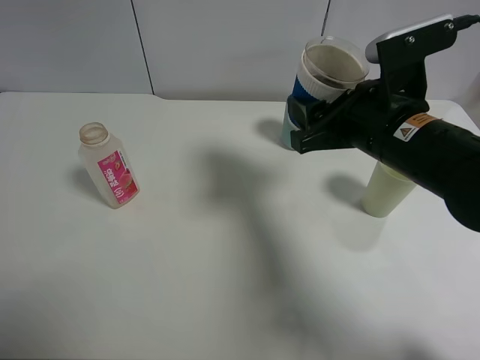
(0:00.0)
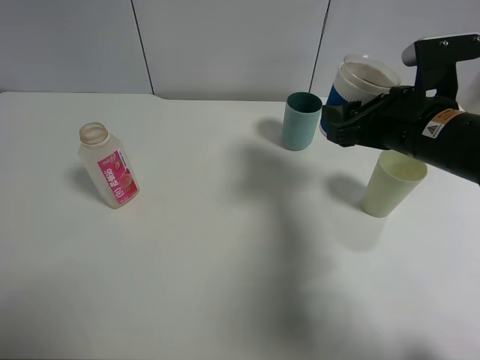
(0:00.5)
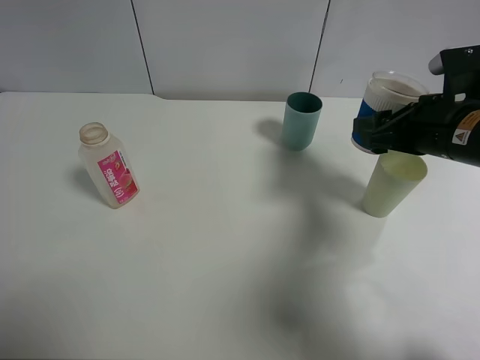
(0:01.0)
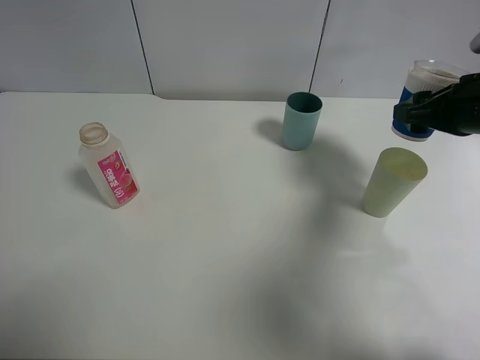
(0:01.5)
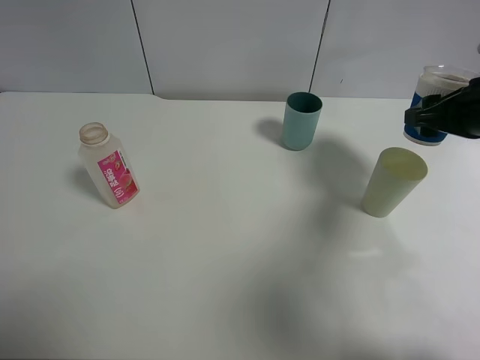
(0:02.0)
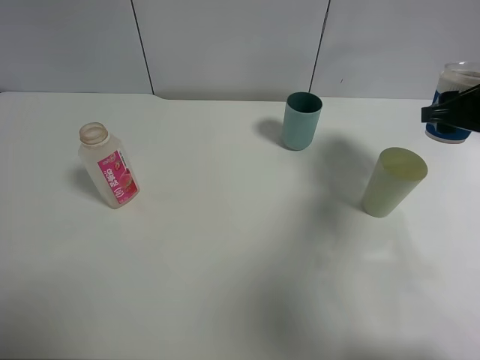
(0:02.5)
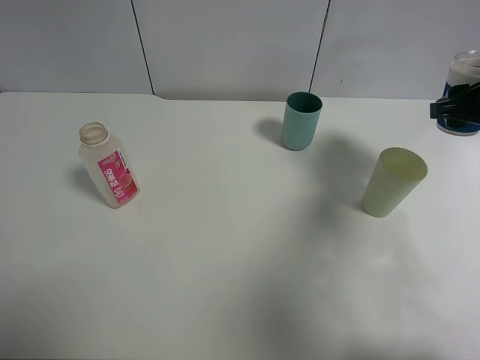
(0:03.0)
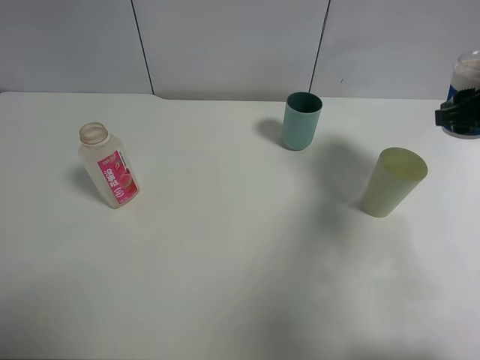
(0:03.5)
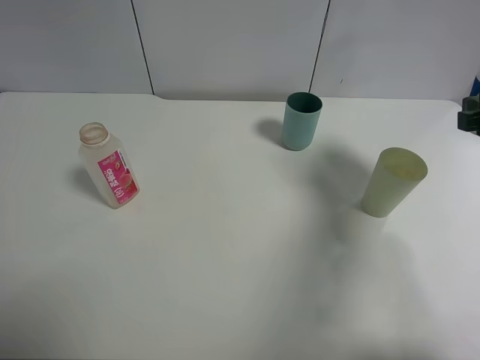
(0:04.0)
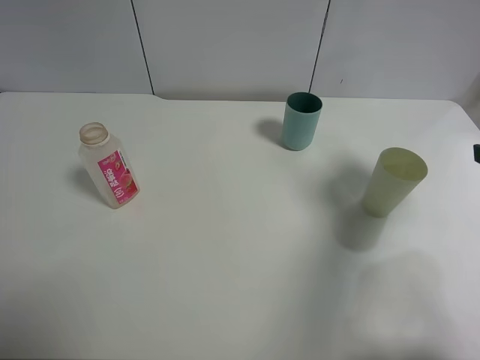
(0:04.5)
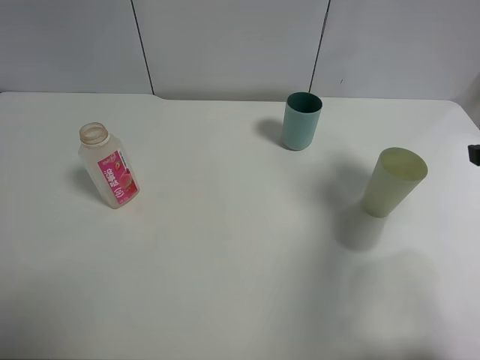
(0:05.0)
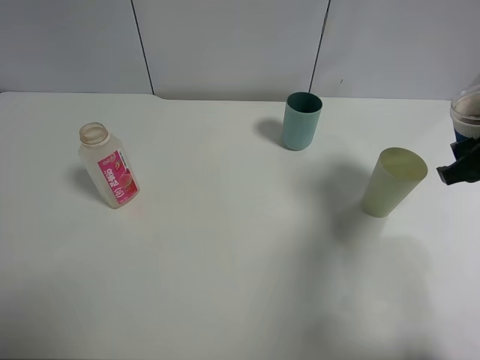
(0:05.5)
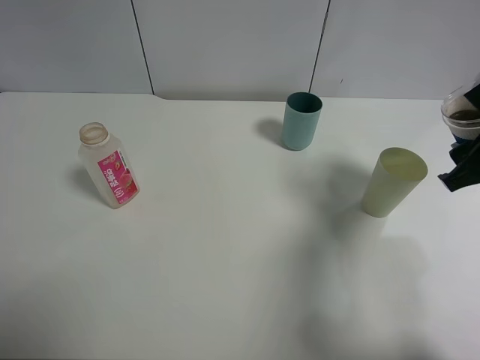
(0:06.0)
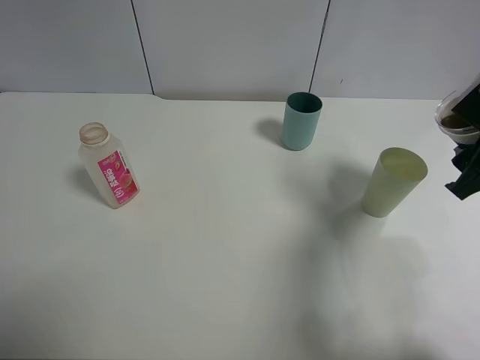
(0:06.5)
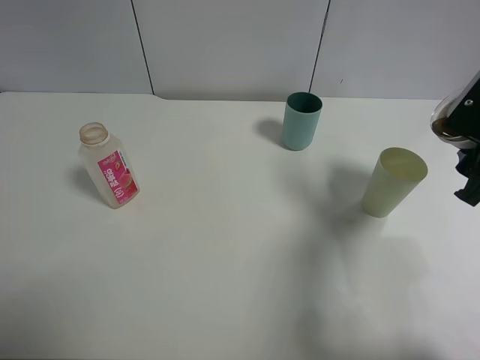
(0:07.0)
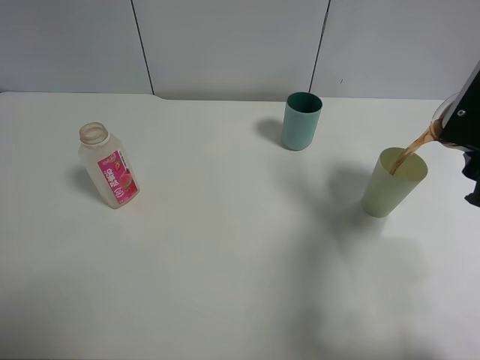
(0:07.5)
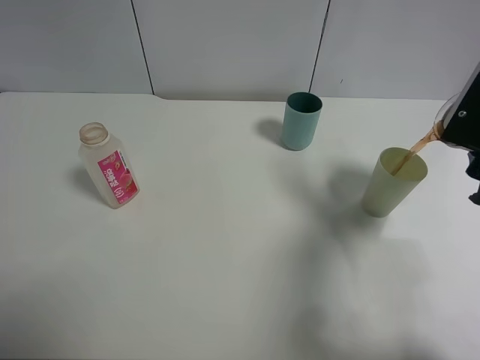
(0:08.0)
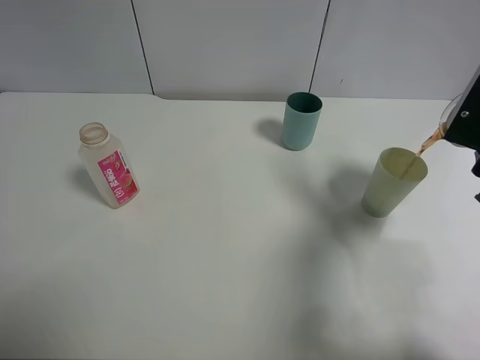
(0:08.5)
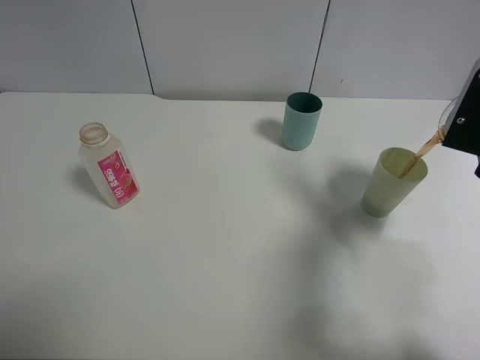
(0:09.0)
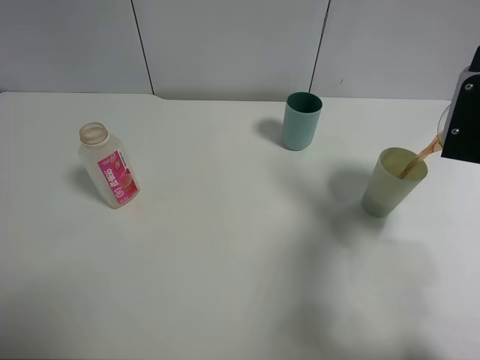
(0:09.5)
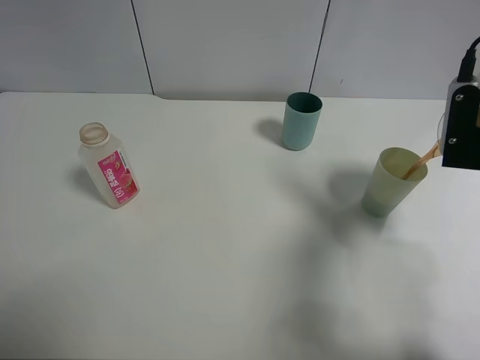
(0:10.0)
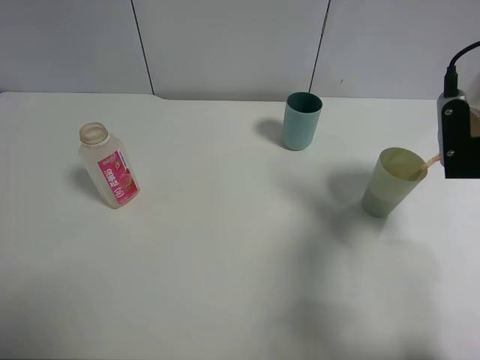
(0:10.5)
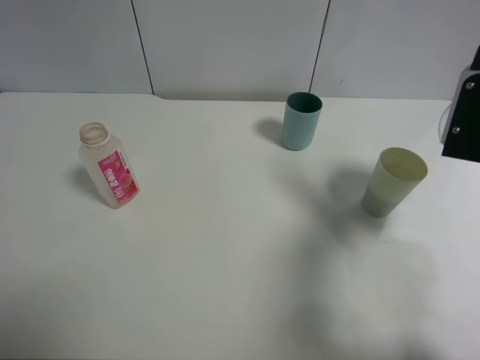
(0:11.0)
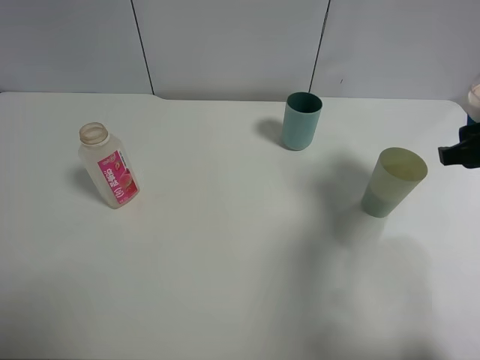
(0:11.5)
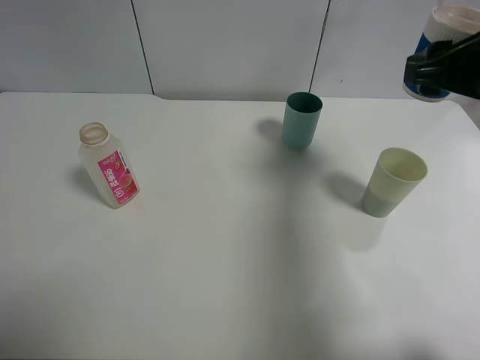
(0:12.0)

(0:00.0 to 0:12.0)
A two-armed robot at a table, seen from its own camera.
Task of the whole recording: use a clamp to hold the bottle of the drink, pour the beverage into a random cup, then clamp the cup containing the drink and pour the drink into another random cup.
Step, 0:00.0 - 0:11.0: Pour the drink into the green plastic cup with right gripper.
0:00.0 - 0:02.0: The right gripper goes about 15 cm to the right.
0:02.0 - 0:04.0: The right gripper heads backward, covering about 5 cm.
0:10.0 - 0:12.0: The right gripper is displaced upward by some 5 cm.

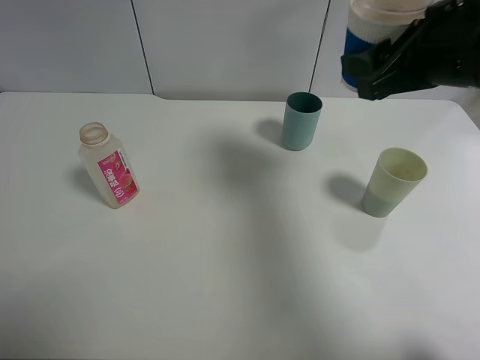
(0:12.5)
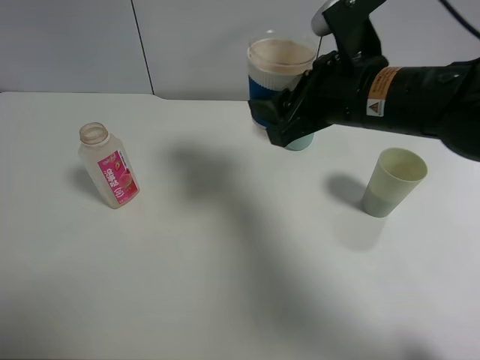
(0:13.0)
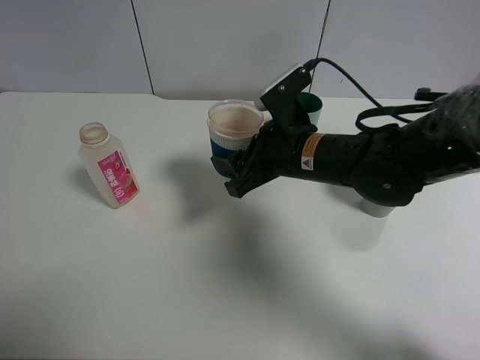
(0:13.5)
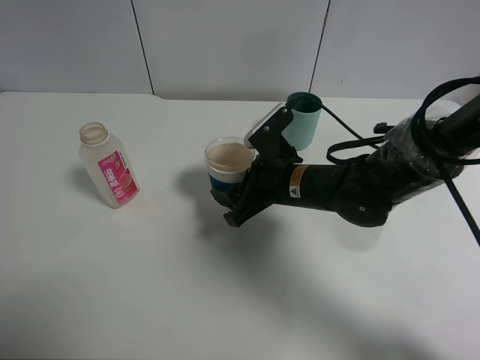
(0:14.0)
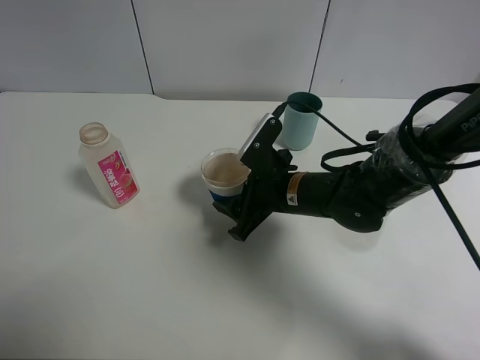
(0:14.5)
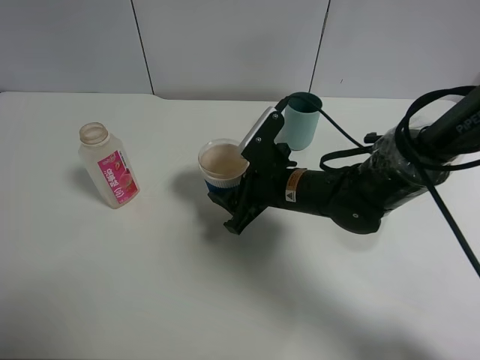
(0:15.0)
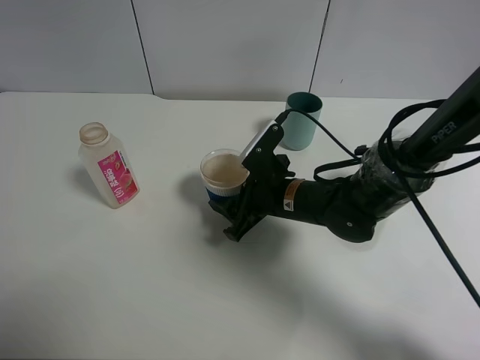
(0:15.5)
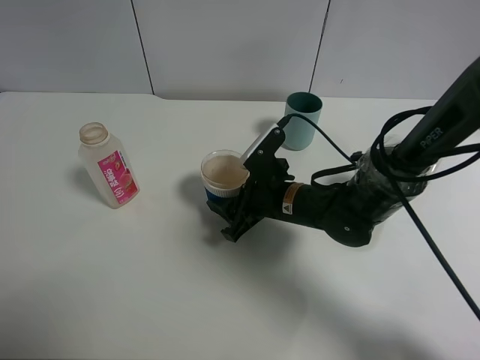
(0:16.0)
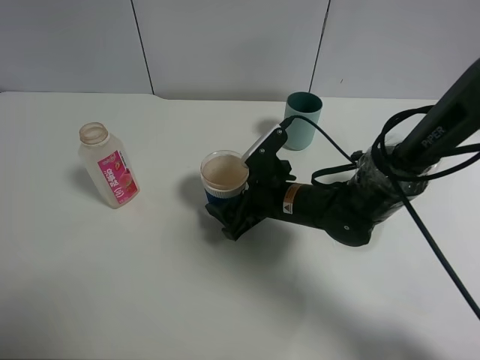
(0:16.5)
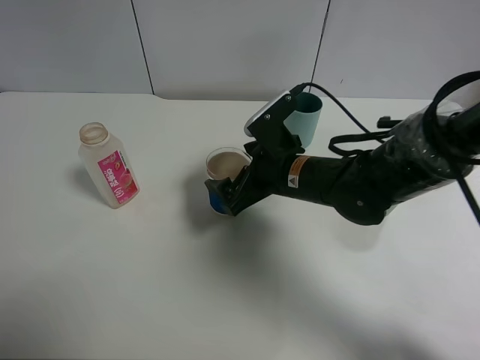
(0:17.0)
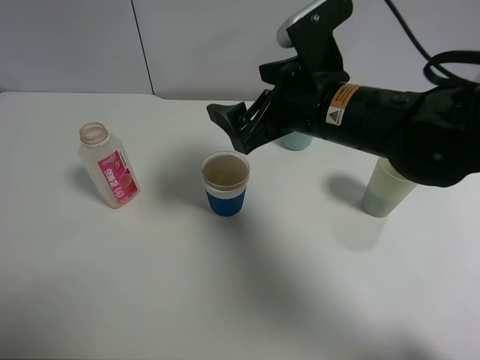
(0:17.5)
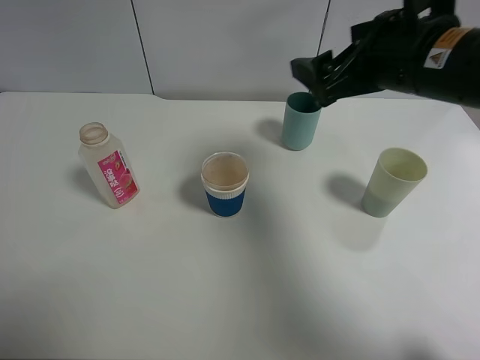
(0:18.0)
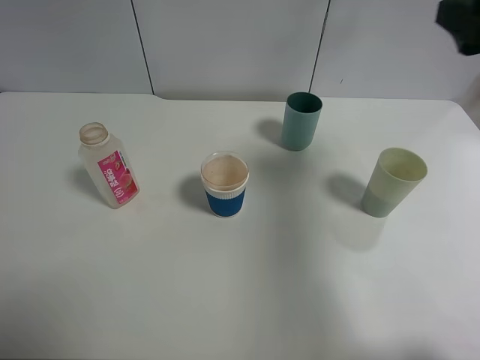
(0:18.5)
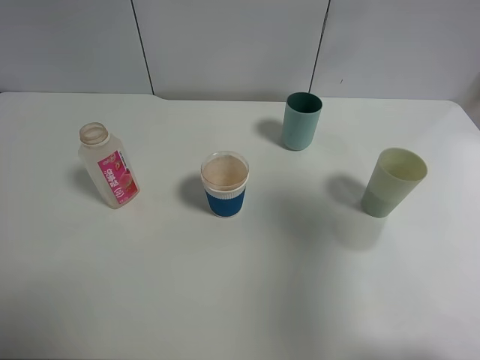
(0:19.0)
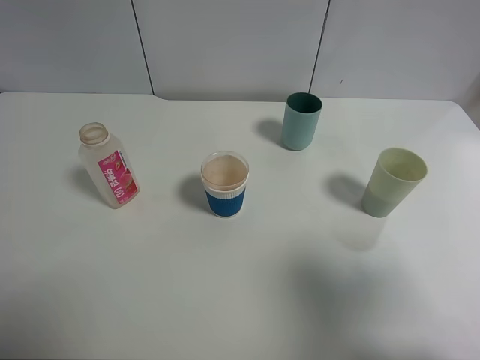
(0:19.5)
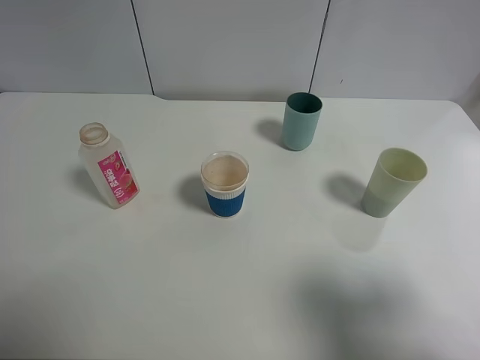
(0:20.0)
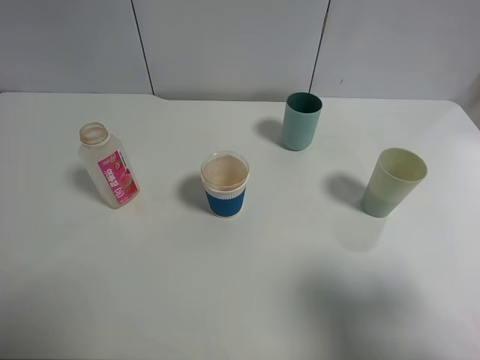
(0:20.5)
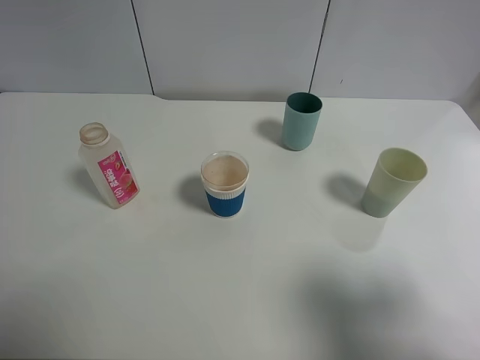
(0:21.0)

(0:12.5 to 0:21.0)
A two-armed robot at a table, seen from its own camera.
Task of the whole recording: use a clamp to hold the bottle of the drink, pour the beverage into a random cup, then clamp the cup containing the drink and pour the drink into another random cup.
Step, 0:12.5 - 0:17.0: Place the paper cup on the table with right gripper.
0:12.5 - 0:14.5: The right gripper travels downward and to the left by roughly 25 cm.
0:14.5 - 0:16.5: The right gripper opens.
0:16.5 - 0:19.0: The right gripper moves upward, to the right and backward, about 40 cm.
0:19.0 - 0:21.0: The right gripper shifts roughly 10 cm backward and downward.

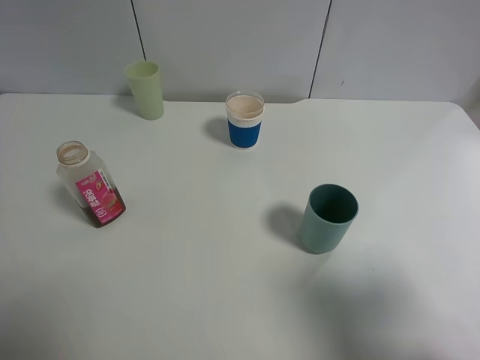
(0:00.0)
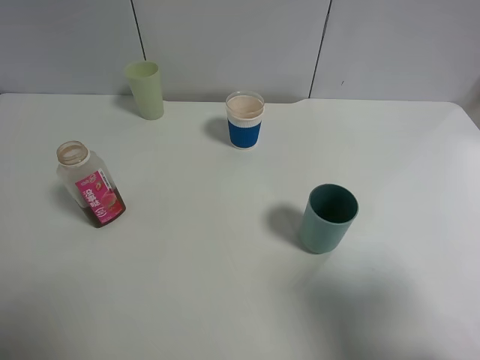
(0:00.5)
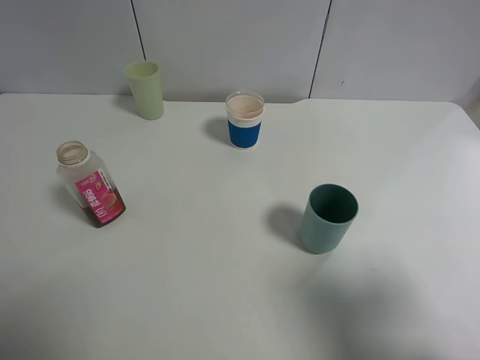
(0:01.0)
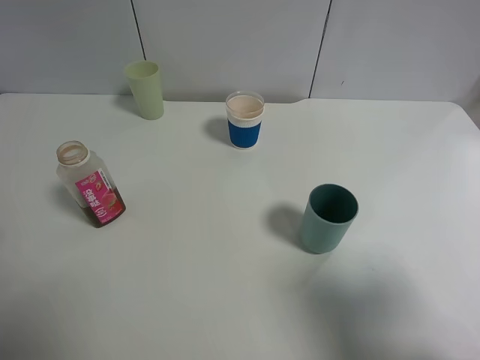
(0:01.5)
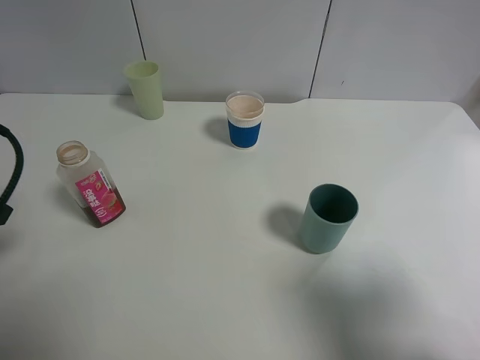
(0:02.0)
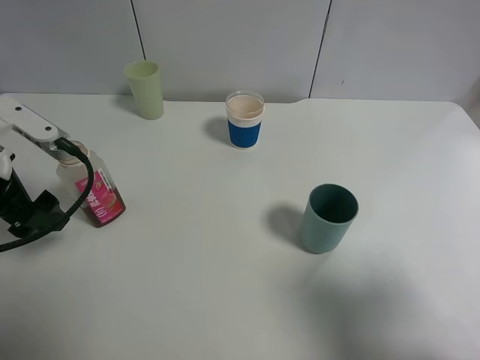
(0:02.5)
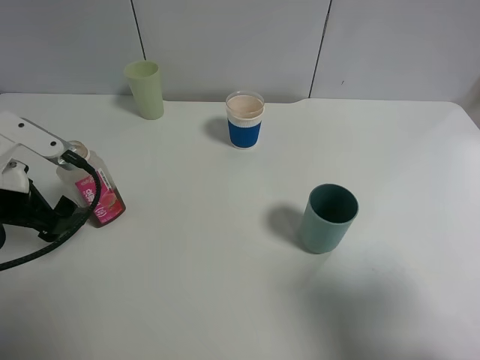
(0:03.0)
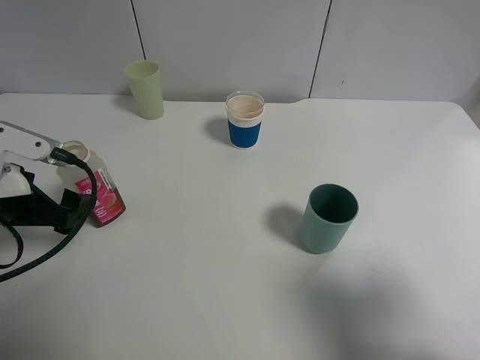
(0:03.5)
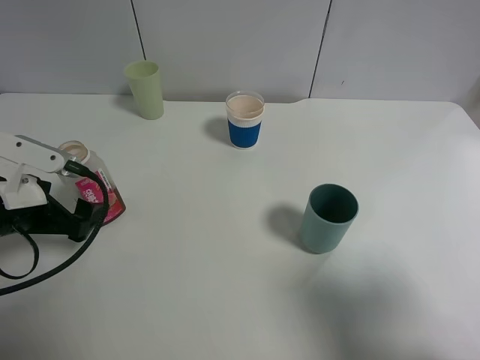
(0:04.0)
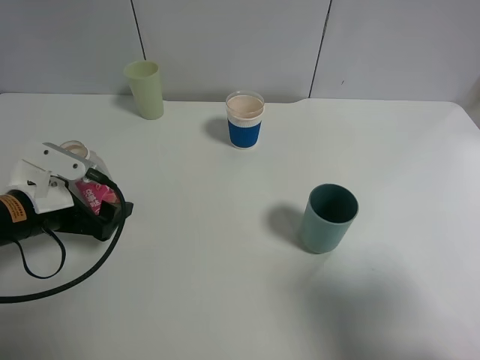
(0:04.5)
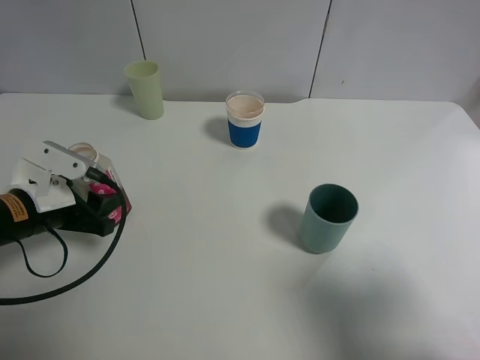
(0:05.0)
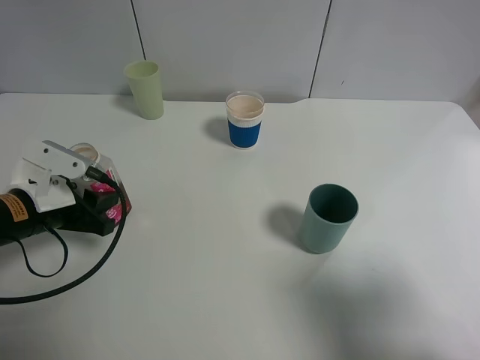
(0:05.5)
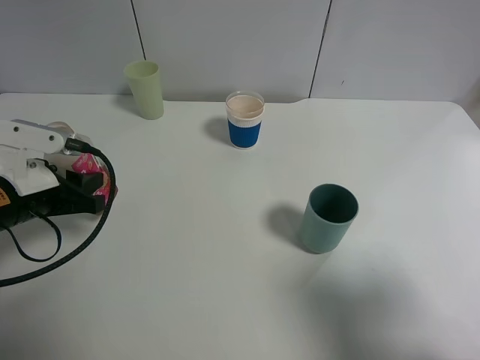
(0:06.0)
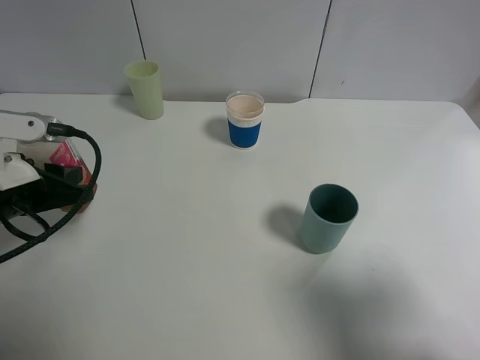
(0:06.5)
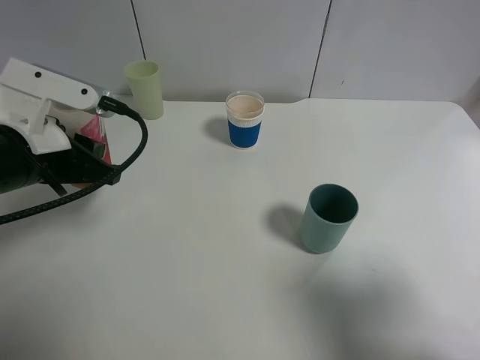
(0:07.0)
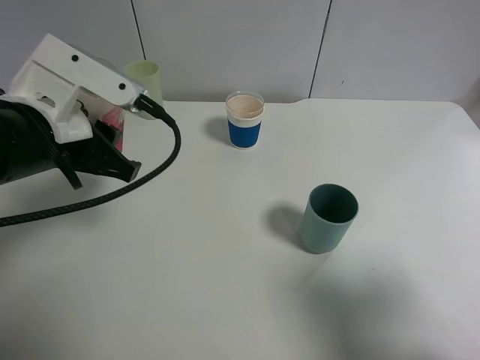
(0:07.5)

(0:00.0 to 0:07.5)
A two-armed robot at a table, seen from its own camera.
Task of the whole recording: use a clamp to hold the bottle of the drink, pour the beverage into a random cup, then clamp the cup containing the drink and pour the drink into another random cup.
Step, 0:00.0 - 0:05.5: Pick up the drink bottle with left gripper.
0:00.0 - 0:02.0: The left gripper moves forward, about 15 cm.
0:02.0 - 0:04.0: The left gripper is displaced downward by about 10 cm.
0:04.0 - 0:05.5: The left gripper closes its fingers.
0:05.5 - 0:07.5: The left gripper heads upward and to the right, covering roughly 15 cm.
